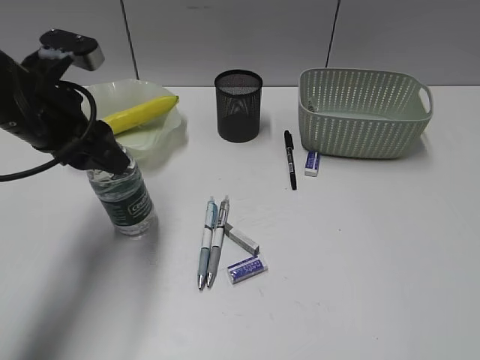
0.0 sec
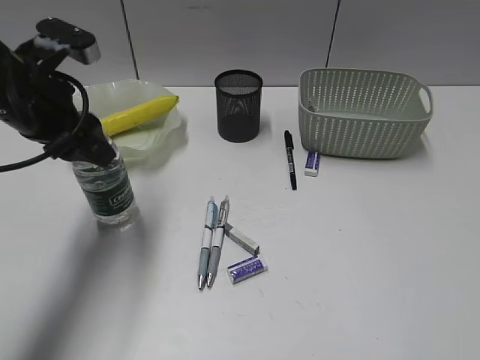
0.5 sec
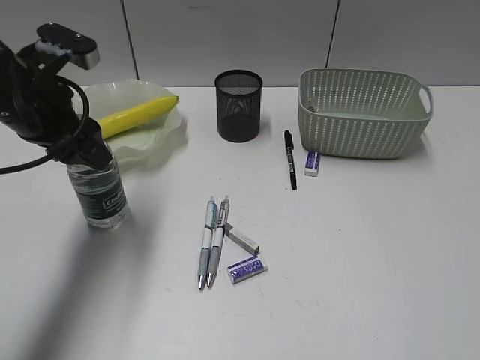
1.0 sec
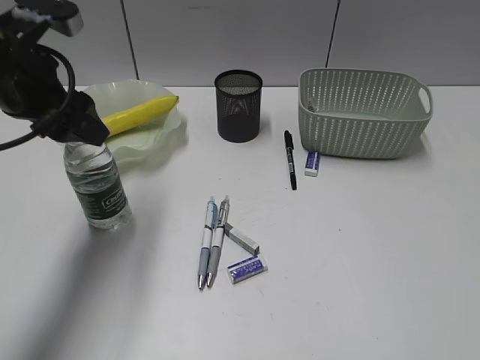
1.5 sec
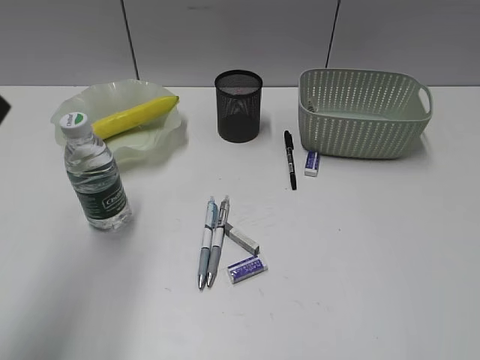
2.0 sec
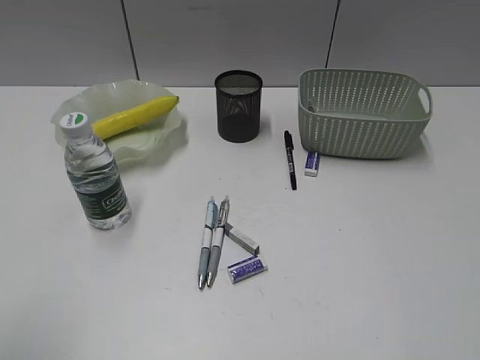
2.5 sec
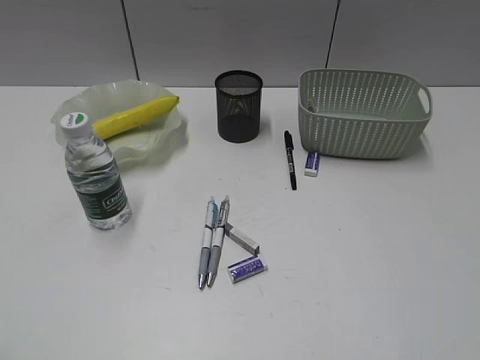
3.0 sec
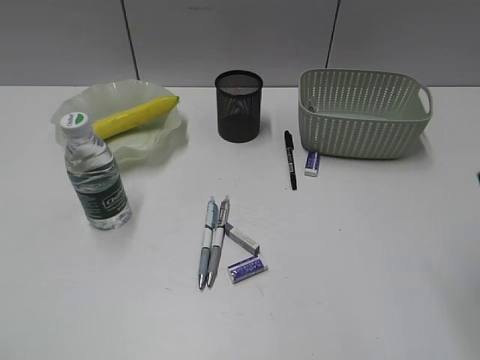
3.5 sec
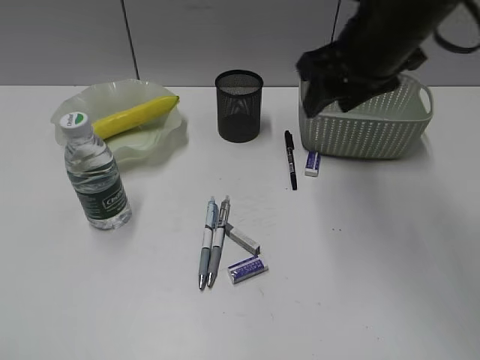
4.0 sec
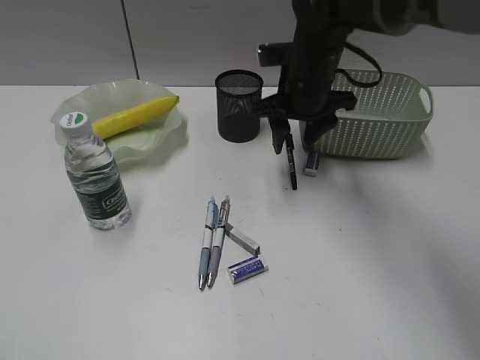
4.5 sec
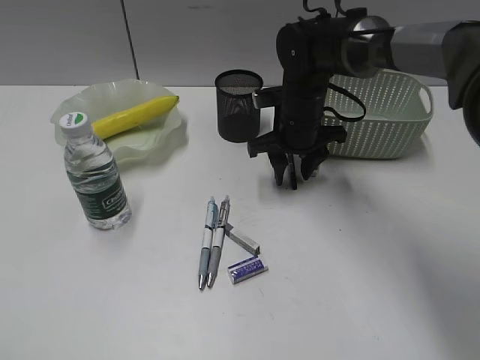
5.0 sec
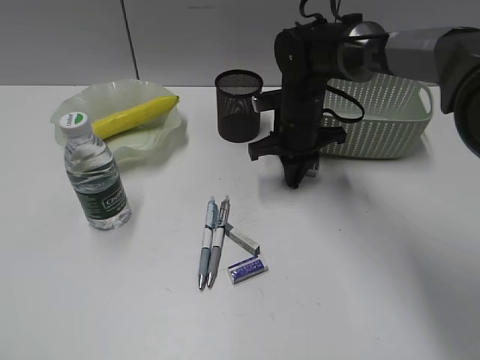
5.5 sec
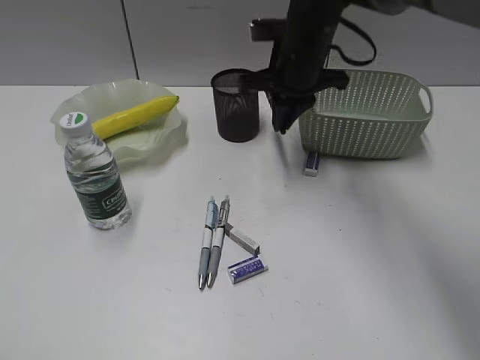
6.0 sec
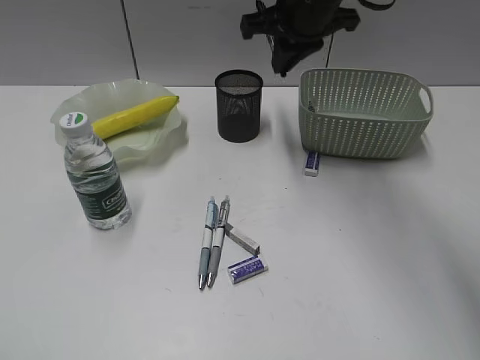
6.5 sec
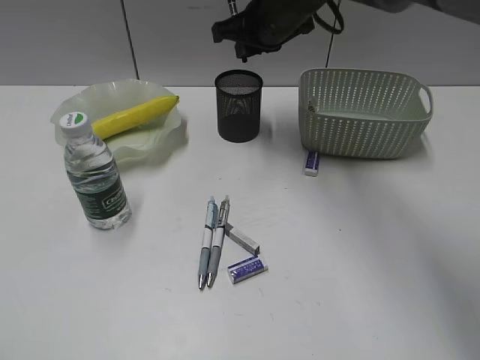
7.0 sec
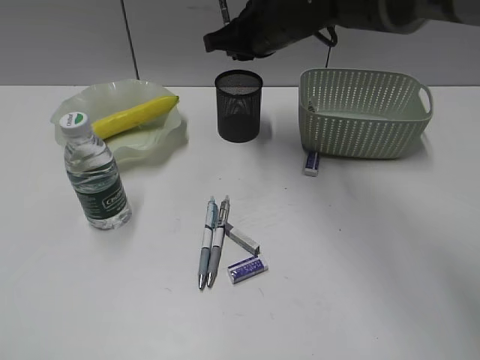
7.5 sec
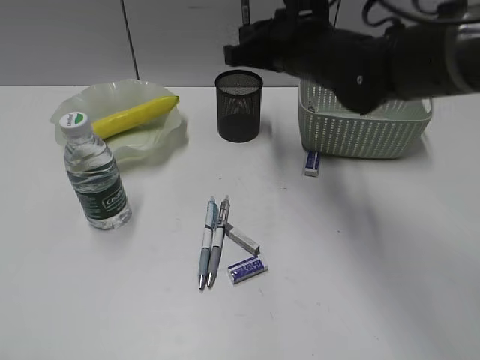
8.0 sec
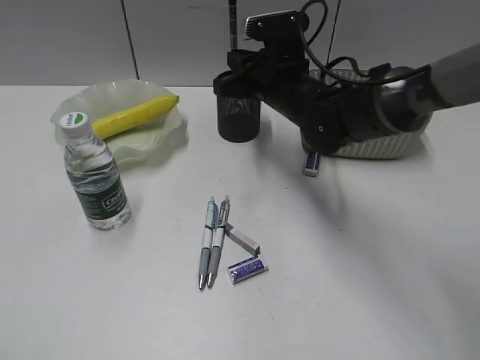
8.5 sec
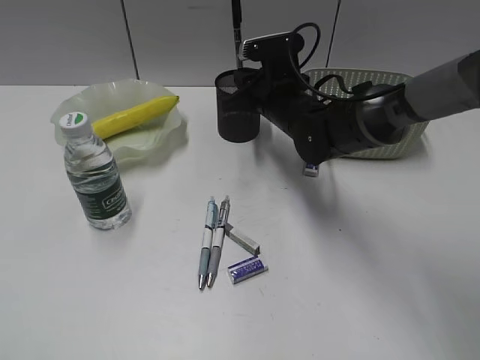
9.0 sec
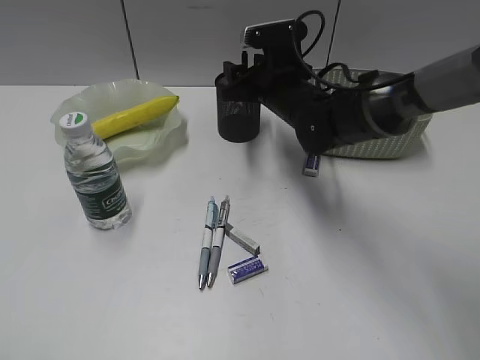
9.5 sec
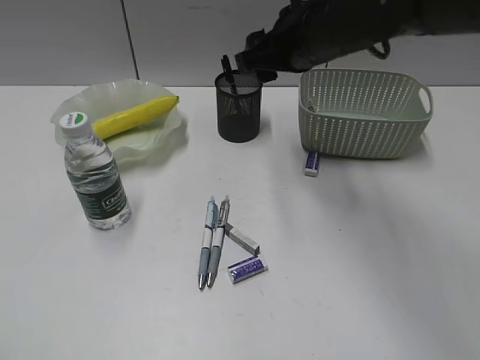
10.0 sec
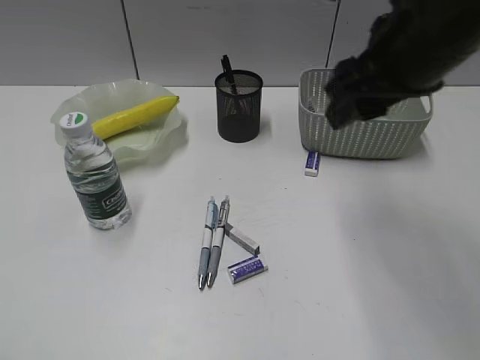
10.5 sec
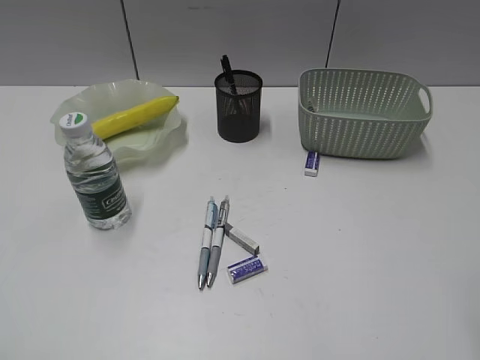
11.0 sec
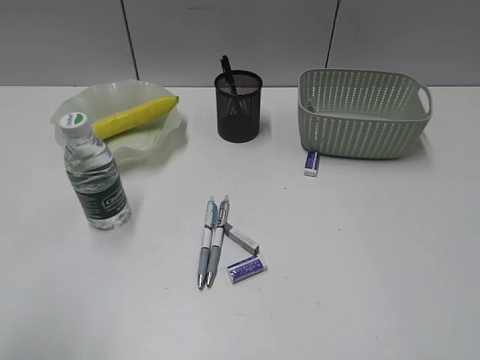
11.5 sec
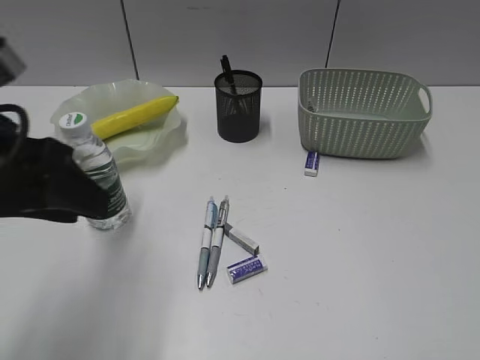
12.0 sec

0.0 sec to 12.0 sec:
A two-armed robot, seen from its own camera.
Step, 2.0 sec to 5.5 sec: Grasp the black pen with right gripper.
Step, 6.0 sec to 9.0 sec: Place the black pen in pen holder with right gripper.
0.0 sec to 2.0 sec: The left gripper travels upward and backward by about 15 cm.
2.0 sec to 4.0 sec: The right gripper is displaced forward and to the left by approximately 40 cm; the left gripper is displaced backward by roughly 20 cm.
4.0 sec to 6.0 sec: The right gripper is displaced forward, downward and to the left by roughly 15 cm, and closes its fingers.
8.0 sec to 10.0 sec: The right gripper goes downward and returns, some 10 cm each way, and opens up.
10.0 sec to 12.0 sec: The left gripper heads forward and to the right, covering approximately 25 cm. The right gripper shifts about 40 cm backward and to the right.

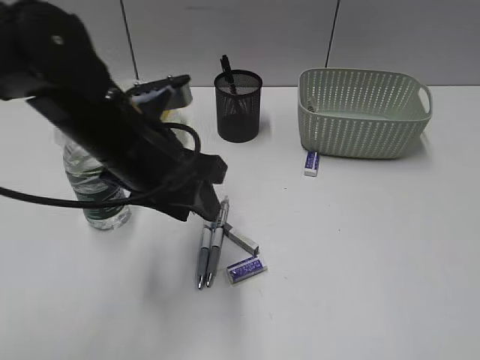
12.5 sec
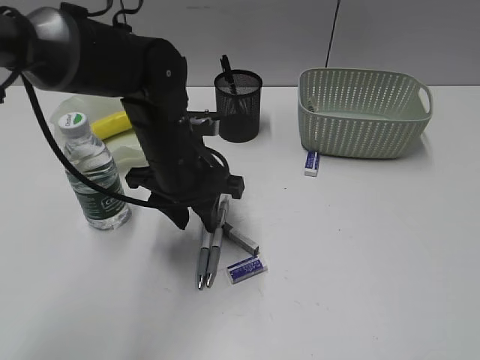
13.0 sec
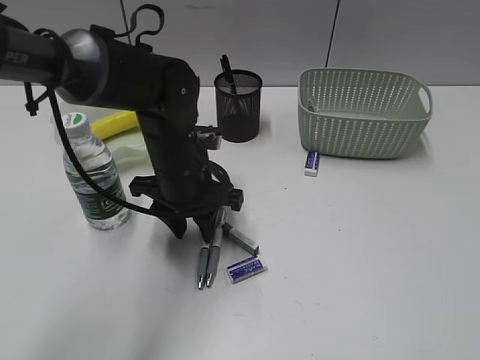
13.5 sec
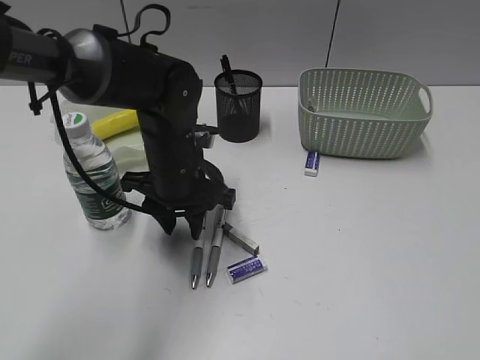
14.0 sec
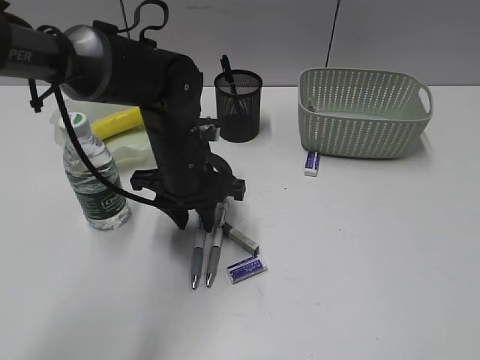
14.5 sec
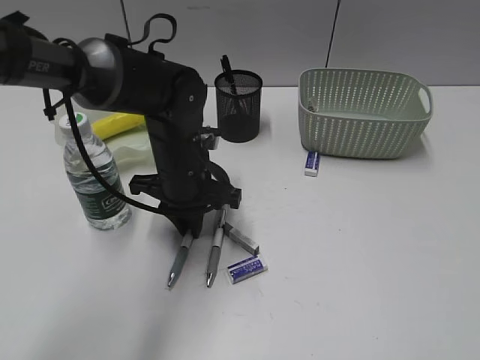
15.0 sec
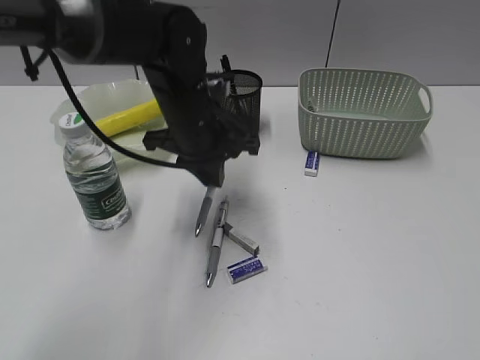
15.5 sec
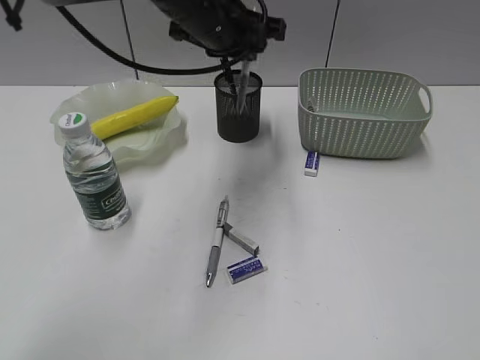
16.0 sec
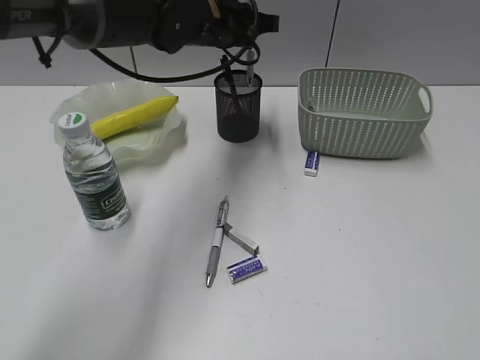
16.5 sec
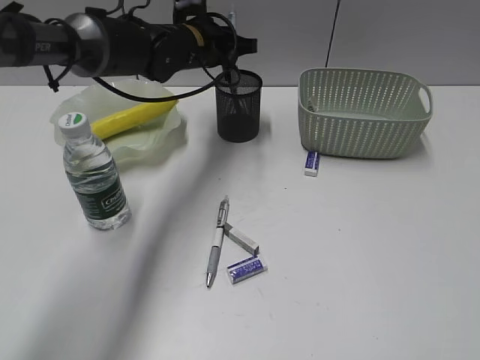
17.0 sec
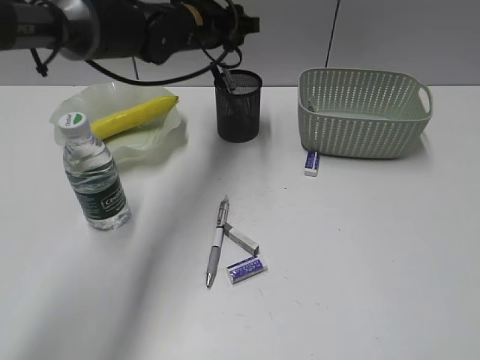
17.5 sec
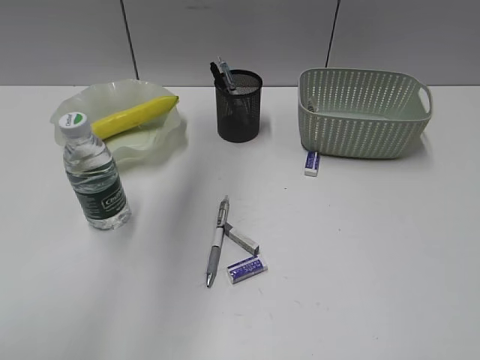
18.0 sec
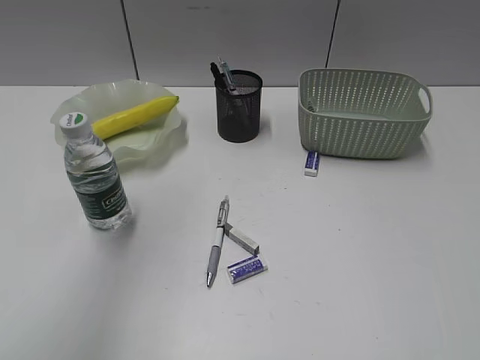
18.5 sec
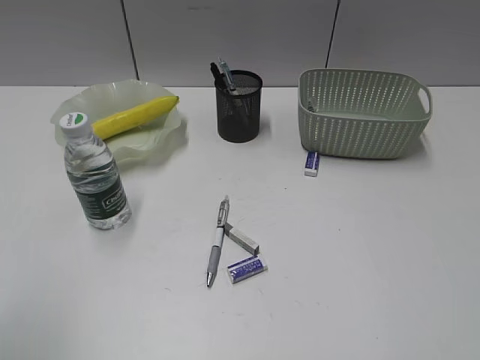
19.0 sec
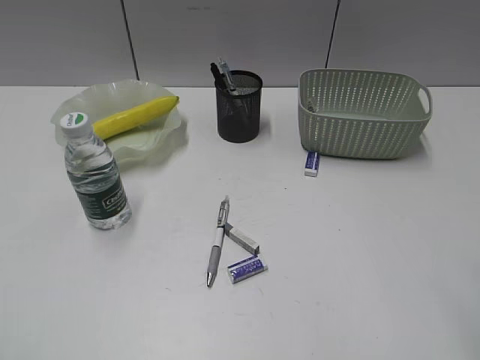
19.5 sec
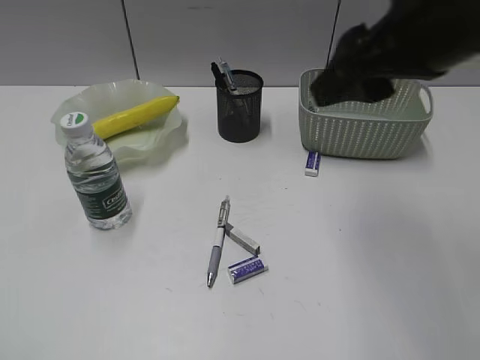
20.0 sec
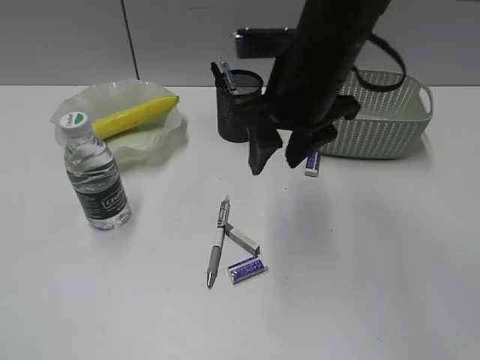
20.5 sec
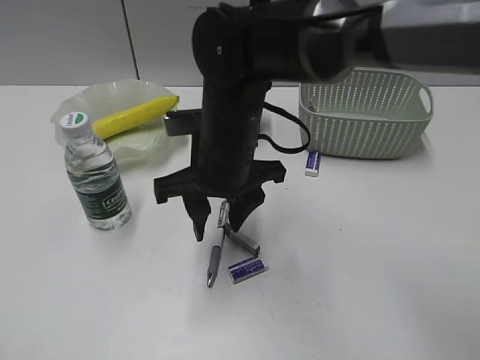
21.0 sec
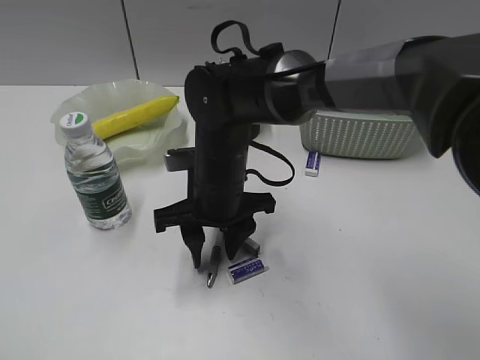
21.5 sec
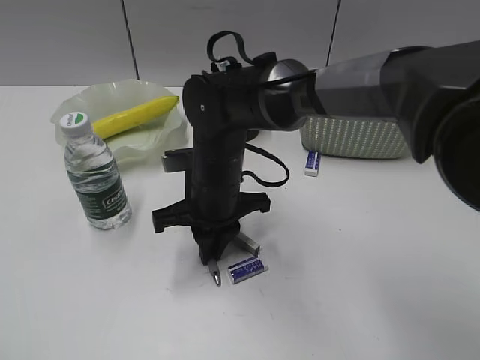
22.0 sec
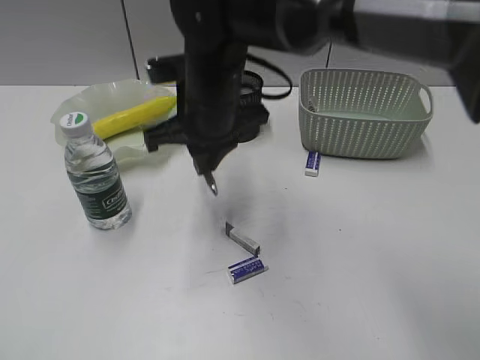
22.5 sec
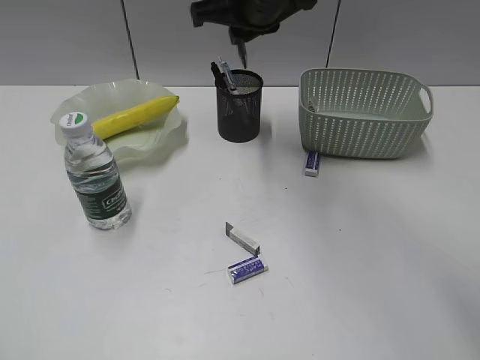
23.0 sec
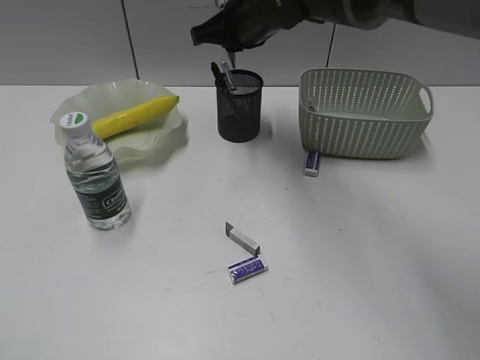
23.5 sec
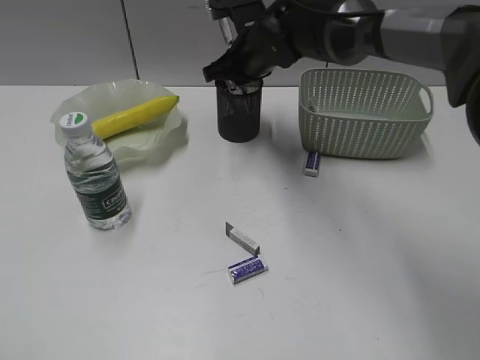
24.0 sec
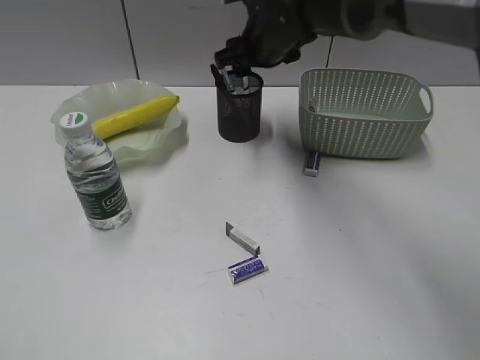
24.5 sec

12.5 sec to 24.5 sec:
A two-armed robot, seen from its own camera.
Step, 12.5 sec to 15.0 sec: Grasp the blue pen with left gripper.
Step, 15.5 sec to 17.0 sec: Place the blue pen in pen holder with left gripper.
Step, 17.5 sec to 21.5 sec: Grasp the gray pen with right gripper.
Step, 22.0 sec to 24.0 sec: Place the gray pen in pen holder with right gripper.
12.5 sec to 14.5 sec: The left gripper is displaced downward and forward by approximately 10 cm.
14.5 sec to 16.5 sec: The left gripper goes about 15 cm forward and upward, and closes up.
16.5 sec to 18.5 sec: The left gripper shifts some 35 cm upward, backward and to the left, and opens.
18.5 sec to 20.5 sec: The right gripper heads forward and to the left, covering roughly 40 cm. Meanwhile the left gripper goes roughly 30 cm backward, downward and to the left.
20.5 sec to 22.5 sec: The right gripper heads to the left, covering about 10 cm, reaches about 15 cm downward, then returns, and closes its fingers.
22.5 sec to 24.5 sec: The right gripper shifts roughly 15 cm forward and to the right, and opens.

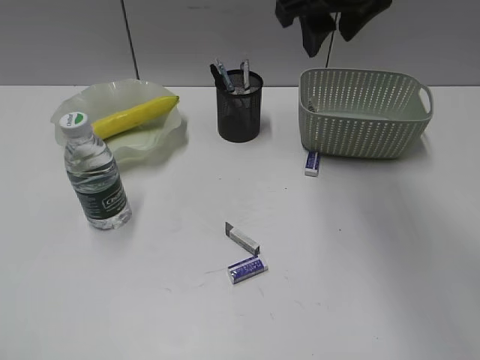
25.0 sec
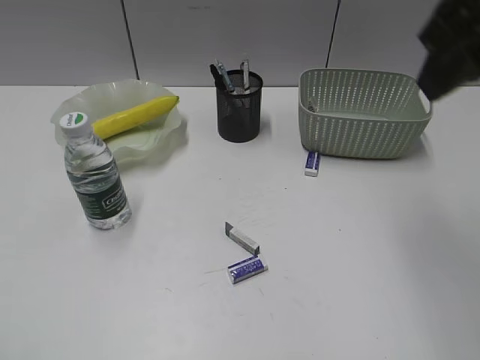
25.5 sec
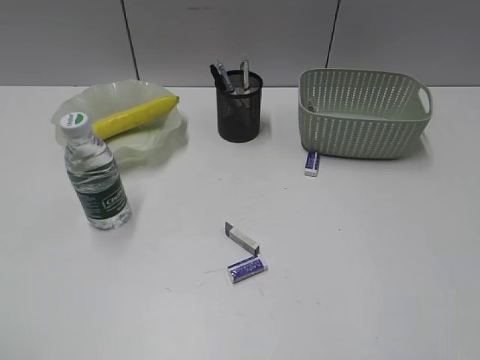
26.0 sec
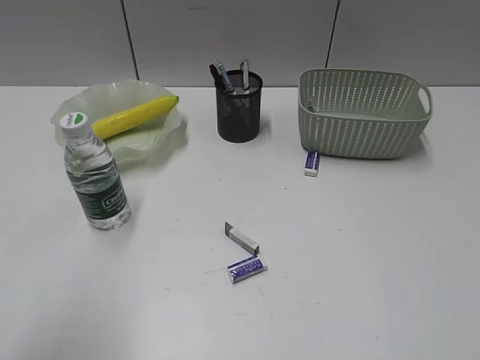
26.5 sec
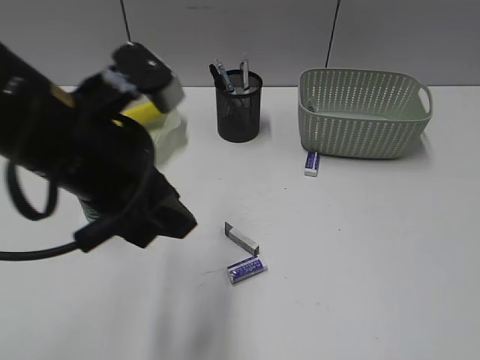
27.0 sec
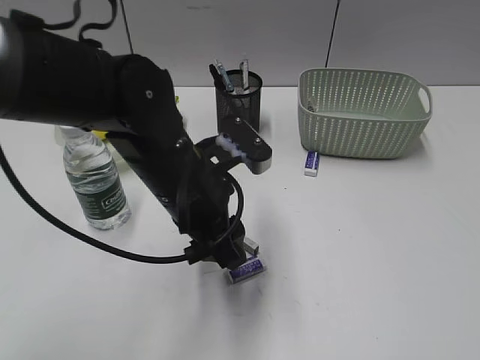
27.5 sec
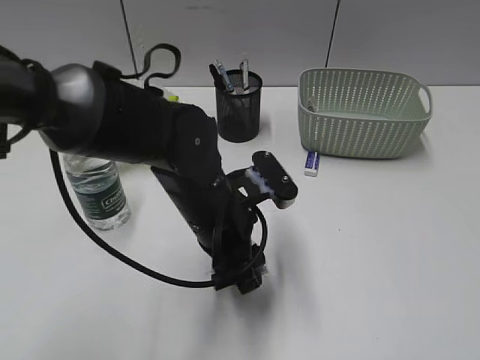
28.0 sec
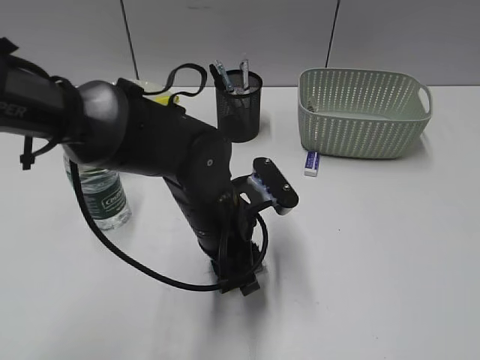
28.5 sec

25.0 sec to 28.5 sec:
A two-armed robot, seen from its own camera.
25.0 sec to 27.0 sec: The right gripper is displaced backward and to the right by roughly 40 cm, while the left gripper goes some 30 cm forward and to the right.
27.0 sec to 28.5 sec: The left gripper heads downward and to the right, covering roughly 20 cm.
